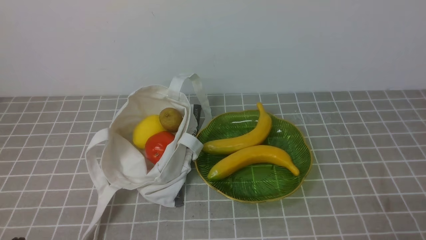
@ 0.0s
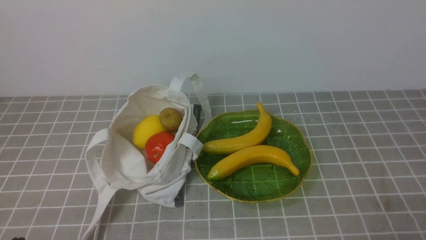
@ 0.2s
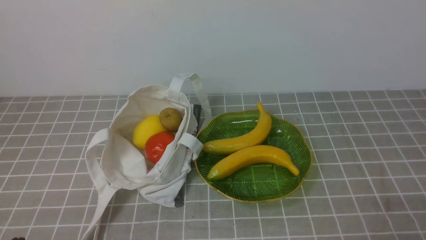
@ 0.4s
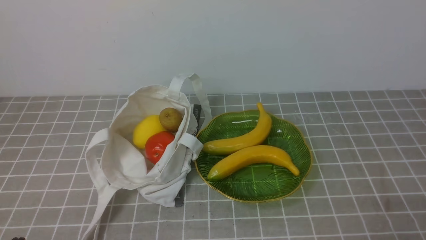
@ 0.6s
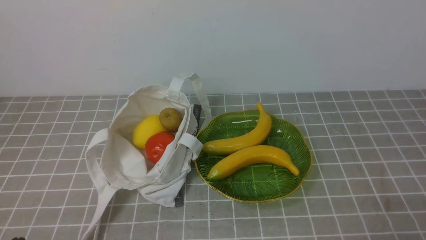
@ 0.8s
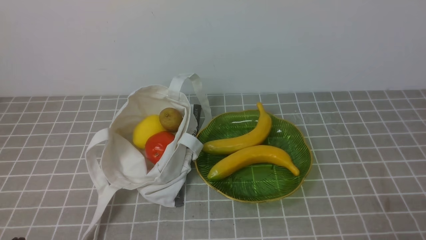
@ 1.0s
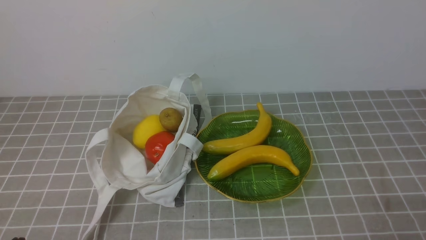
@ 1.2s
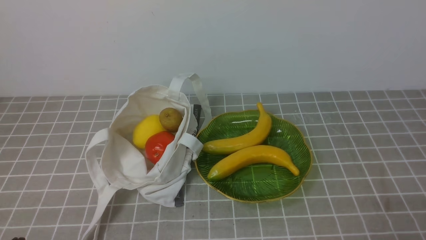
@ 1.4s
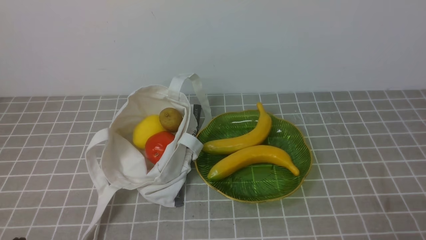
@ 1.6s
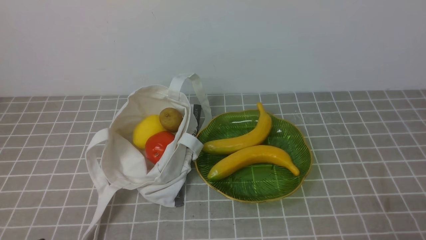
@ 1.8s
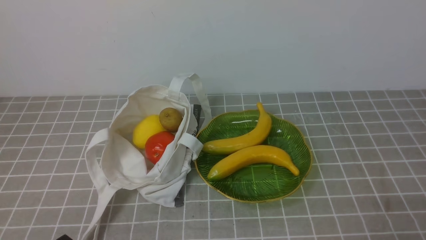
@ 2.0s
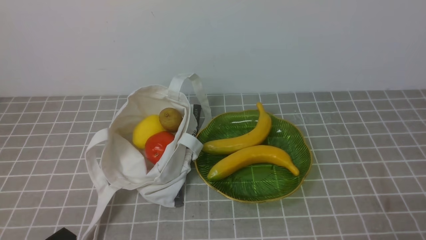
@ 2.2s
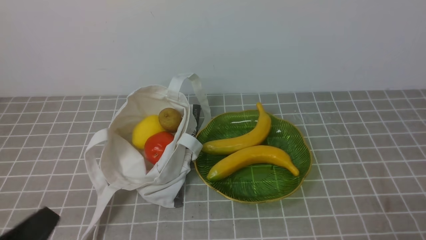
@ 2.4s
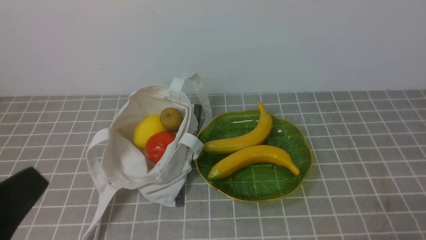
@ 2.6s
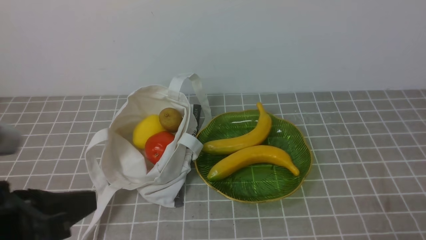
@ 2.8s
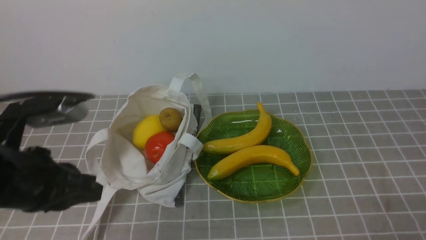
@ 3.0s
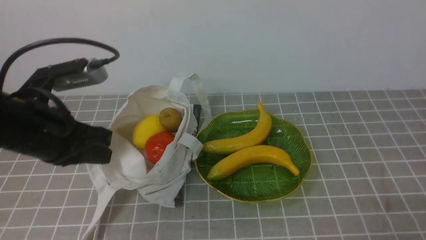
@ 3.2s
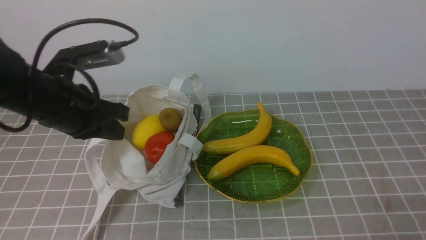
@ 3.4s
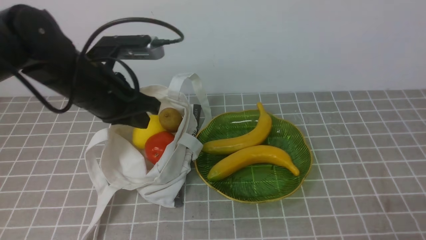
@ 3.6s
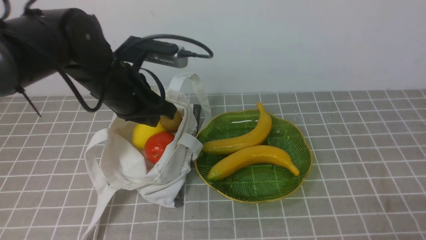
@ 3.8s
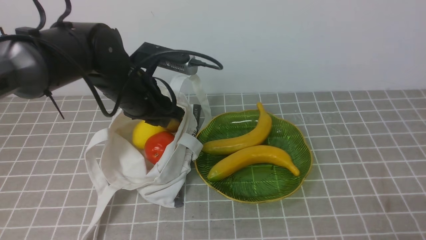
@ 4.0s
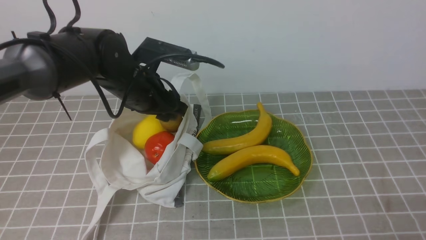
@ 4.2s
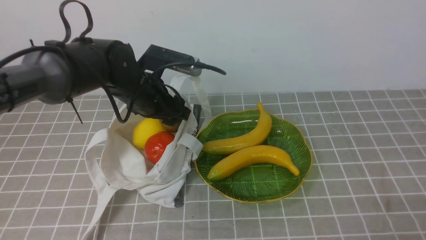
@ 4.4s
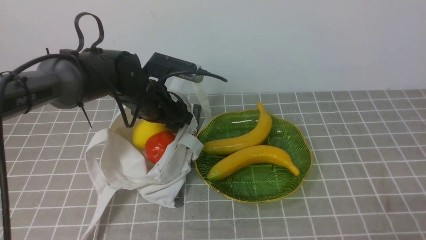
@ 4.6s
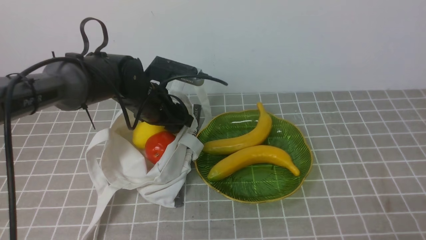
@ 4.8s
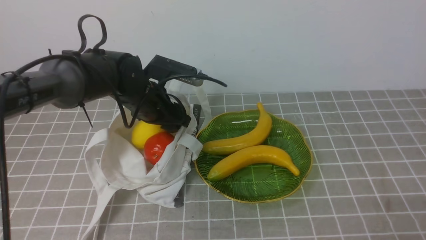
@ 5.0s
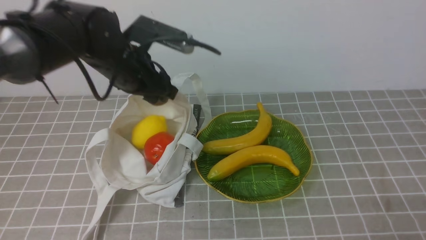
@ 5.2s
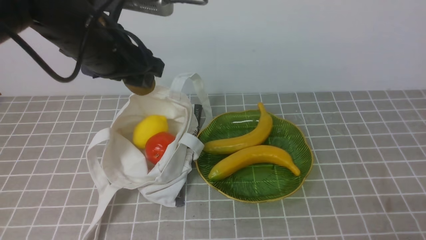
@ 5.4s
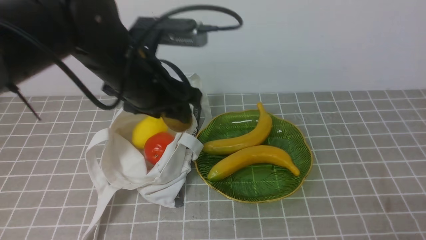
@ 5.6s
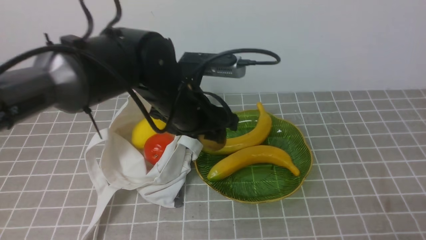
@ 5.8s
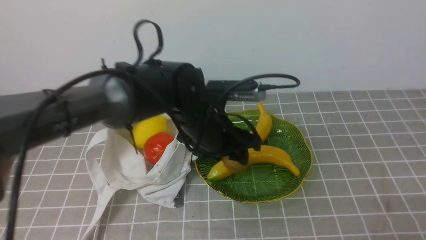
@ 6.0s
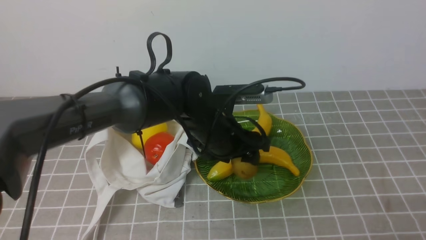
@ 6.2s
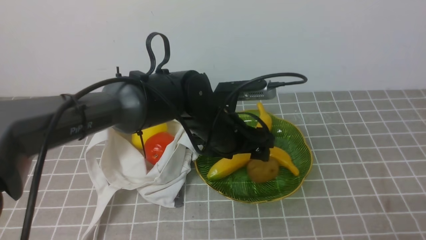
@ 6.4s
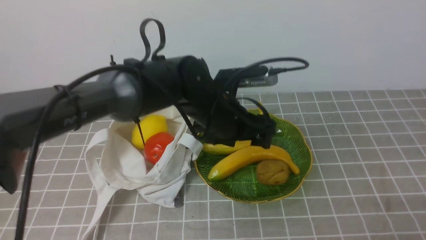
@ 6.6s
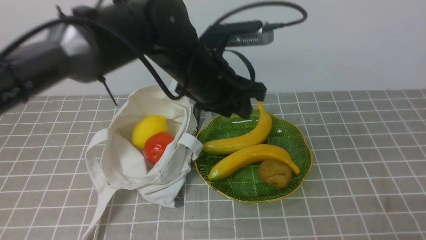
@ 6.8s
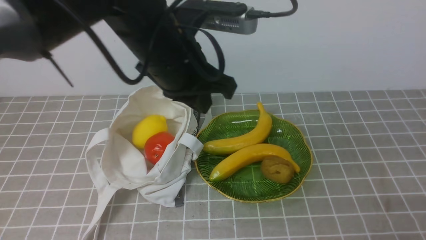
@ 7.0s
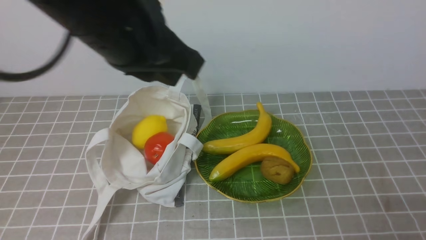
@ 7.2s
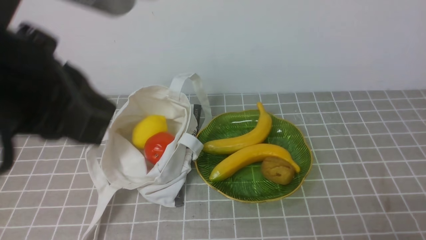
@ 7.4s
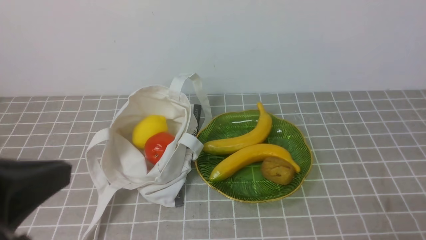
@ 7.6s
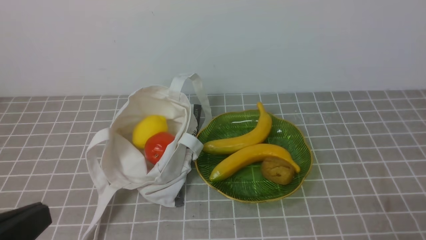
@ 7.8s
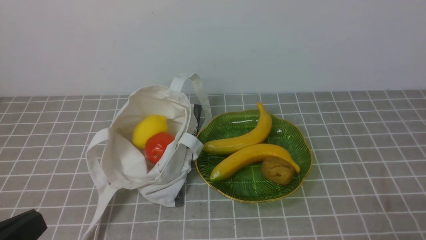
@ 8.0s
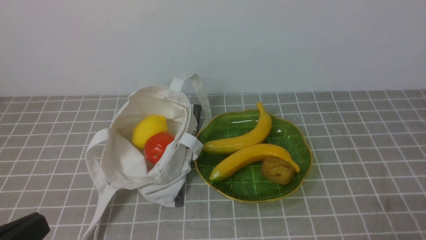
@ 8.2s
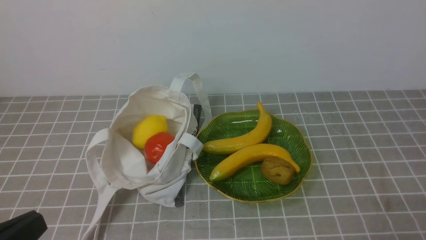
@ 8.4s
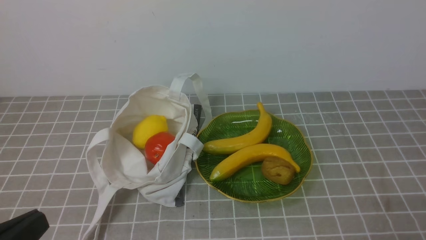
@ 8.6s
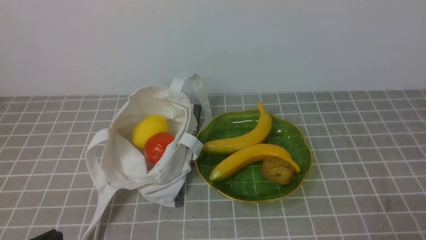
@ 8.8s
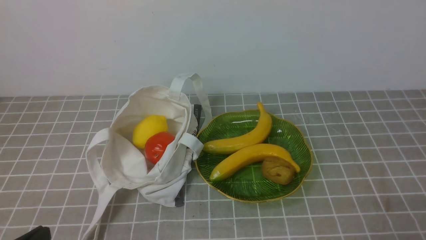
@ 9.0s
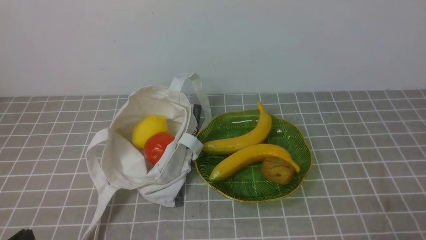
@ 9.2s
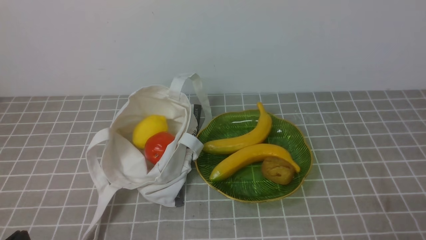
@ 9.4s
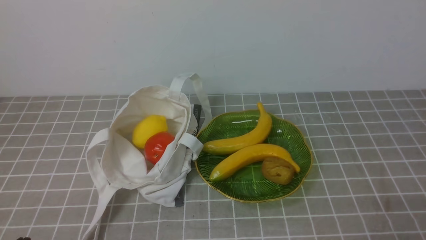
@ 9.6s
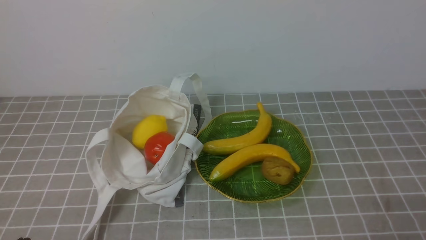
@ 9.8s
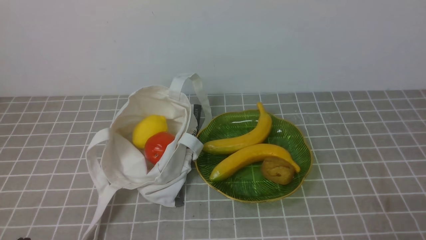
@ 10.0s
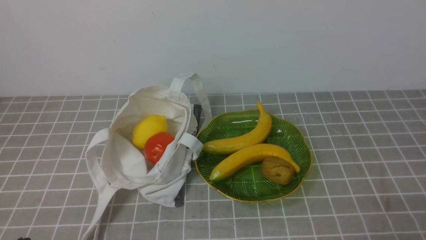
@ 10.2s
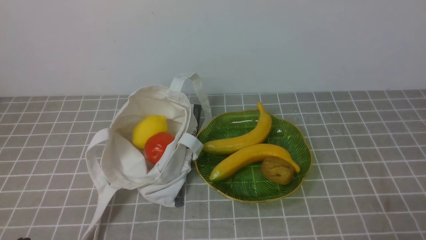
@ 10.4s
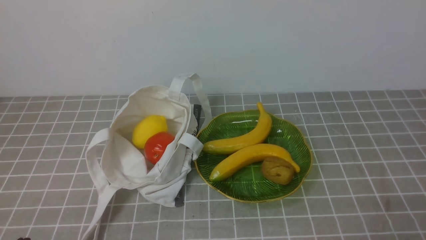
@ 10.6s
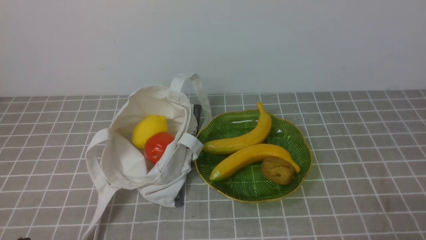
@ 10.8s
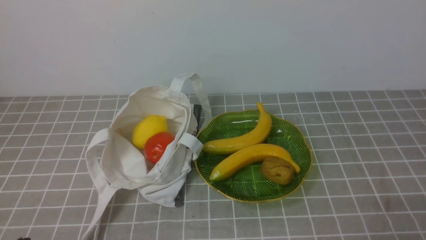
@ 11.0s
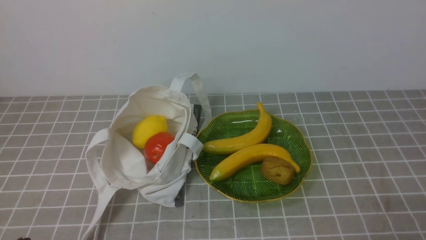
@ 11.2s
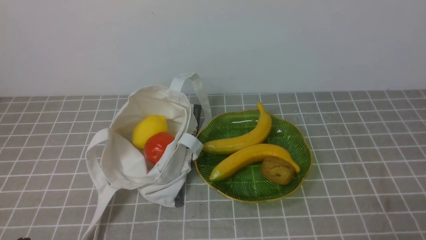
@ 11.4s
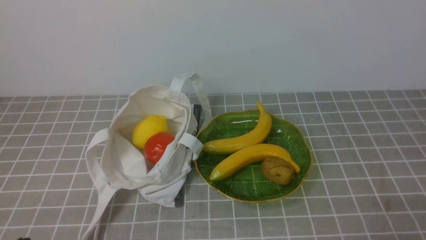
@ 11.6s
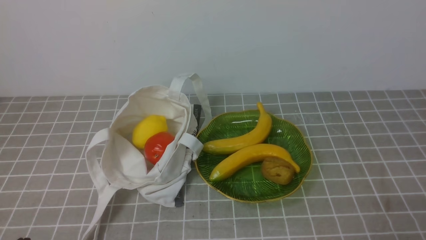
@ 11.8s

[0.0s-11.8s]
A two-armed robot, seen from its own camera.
Step, 0.0s to 5.0s: use the left arm to grab a kiwi from the bag.
Step, 5.2s to 6.4s: use the left arm to put the kiwi into the empty plate on the right.
0.0s to 1.4s: Neither gripper changes place.
1.4s to 3.0s: The left gripper moves upward and forward, some 20 cm.
3.0s to 4.4s: The left gripper heads forward and to the right, covering roughly 25 cm, and opens its fingers.
4.4s to 6.0s: The left gripper shifts approximately 10 cm to the right and backward, and moves about 10 cm upward and comes back.
6.0s to 7.4s: The left gripper heads upward, backward and to the left, covering roughly 30 cm, and closes up.
7.4s to 8.8s: The left gripper moves downward and backward, about 20 cm.
10.4s to 11.8s: Both grippers stay about where they are.
